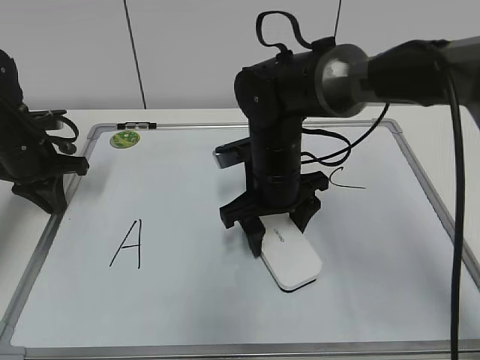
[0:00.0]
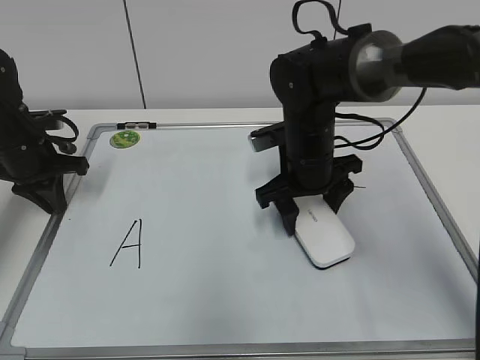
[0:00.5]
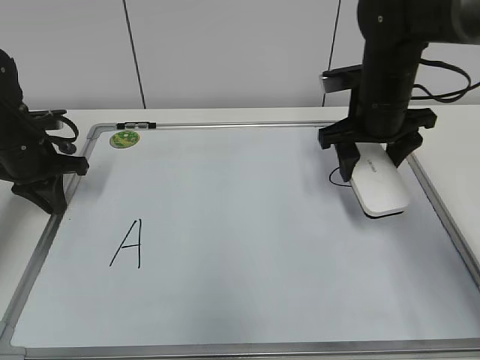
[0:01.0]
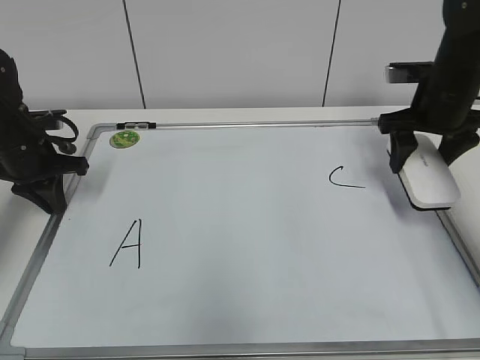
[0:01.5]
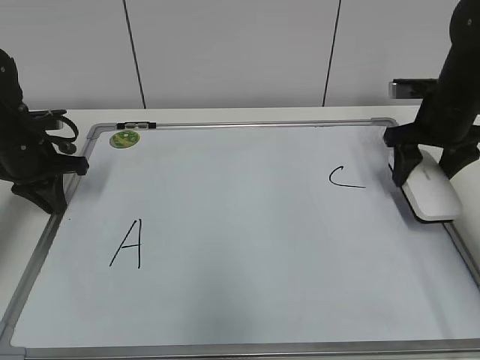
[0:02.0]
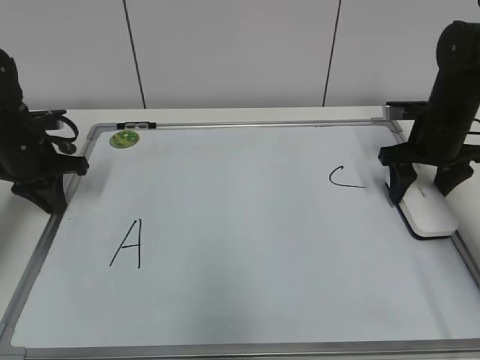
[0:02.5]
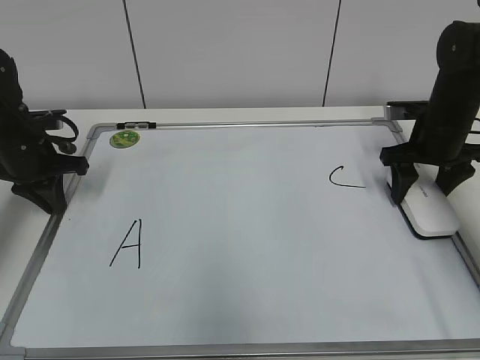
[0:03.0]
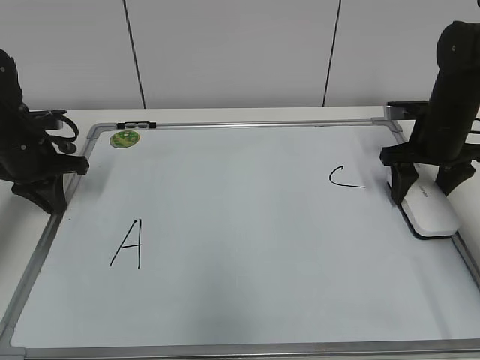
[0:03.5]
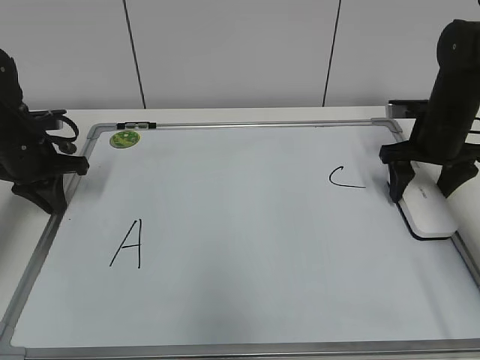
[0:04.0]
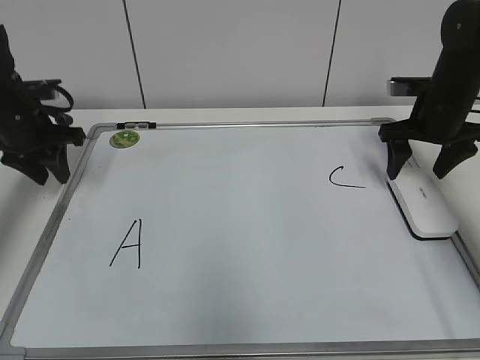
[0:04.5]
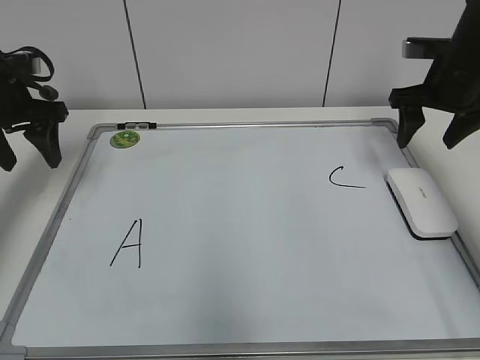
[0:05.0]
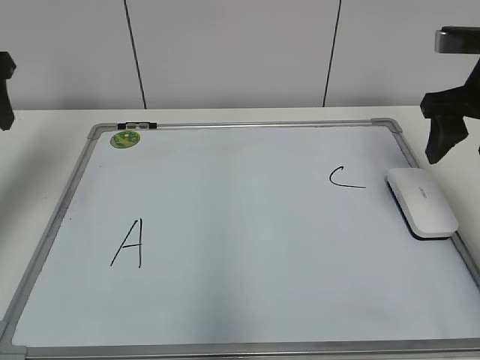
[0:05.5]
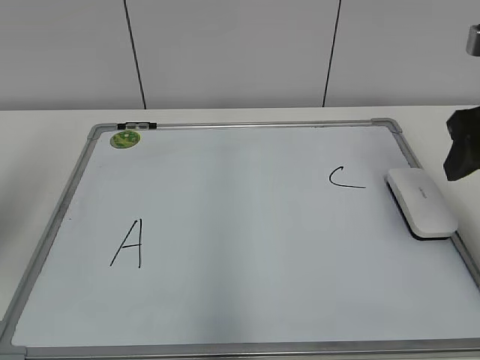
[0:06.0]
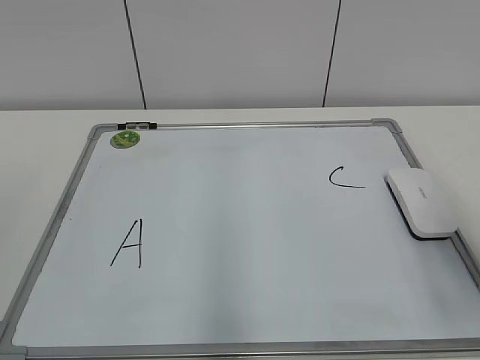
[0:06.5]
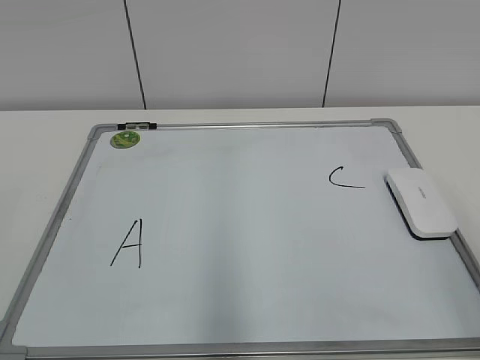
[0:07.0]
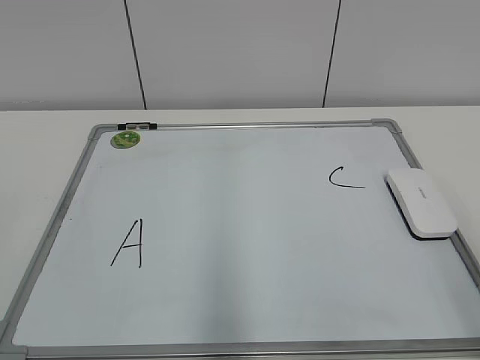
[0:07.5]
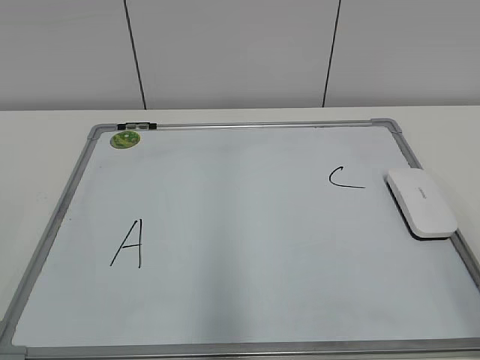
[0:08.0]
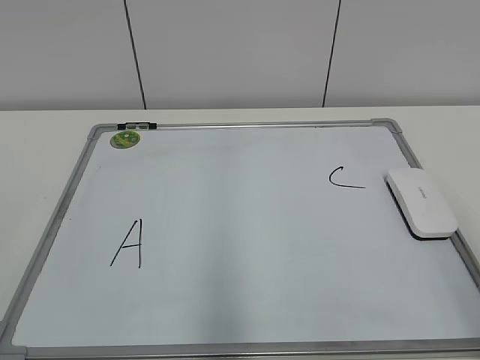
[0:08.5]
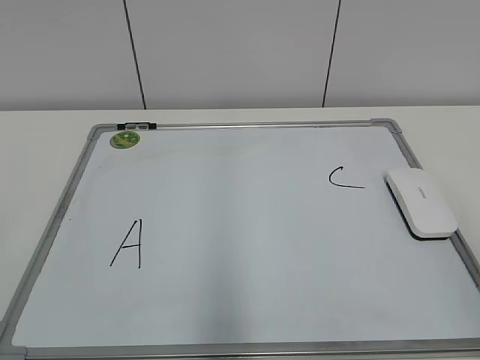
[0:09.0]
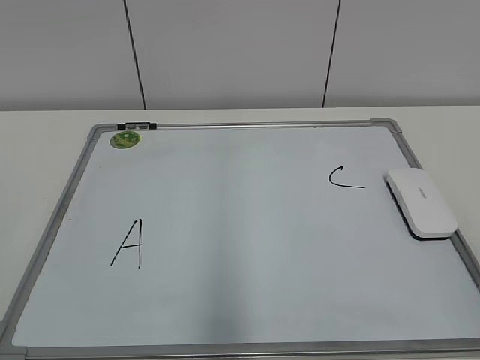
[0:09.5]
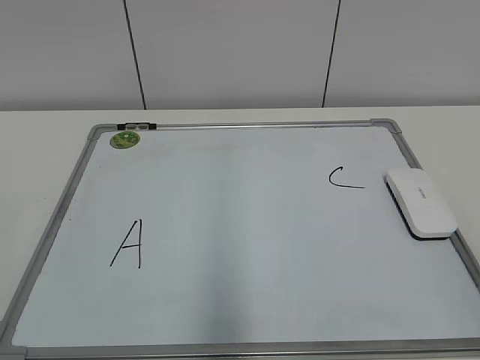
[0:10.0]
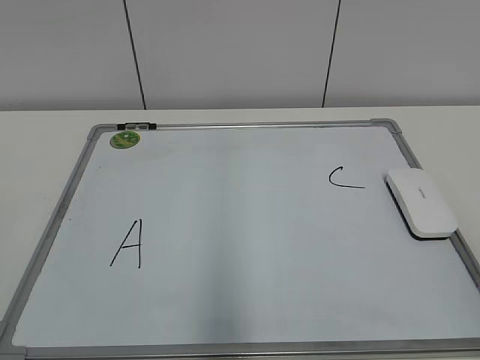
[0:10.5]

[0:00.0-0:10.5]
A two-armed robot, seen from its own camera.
Task of the whole recording: pick up the eraser on the blackboard and erase the letter "B".
Step, 0:00.5 to 0:03.5: Put down the eraser with your right hand.
0:00.0 to 0:02.0: The right gripper travels to the right by roughly 25 cm.
0:02.0 to 0:04.0: The right gripper opens up.
0:04.0 to 0:06.5: The grippers both shift backward and upward by approximately 35 cm. The left gripper opens.
0:06.5 to 0:08.5: The right gripper shifts about 10 cm backward, and closes its fingers.

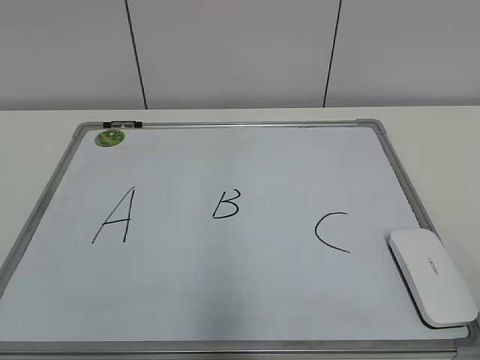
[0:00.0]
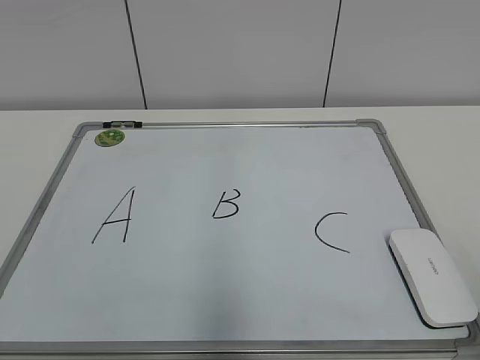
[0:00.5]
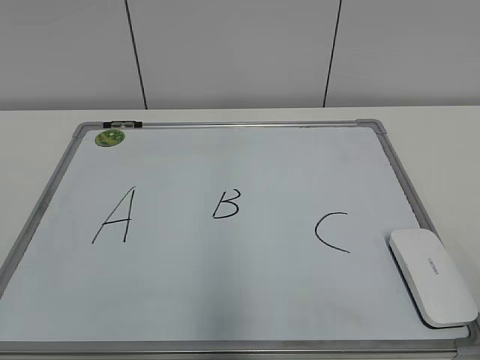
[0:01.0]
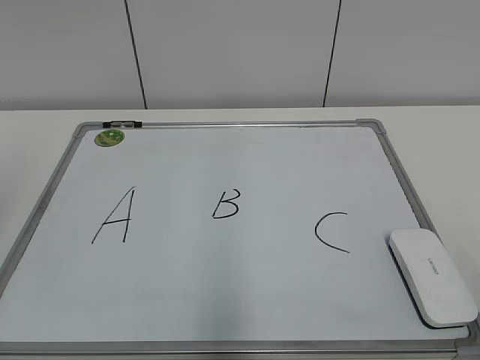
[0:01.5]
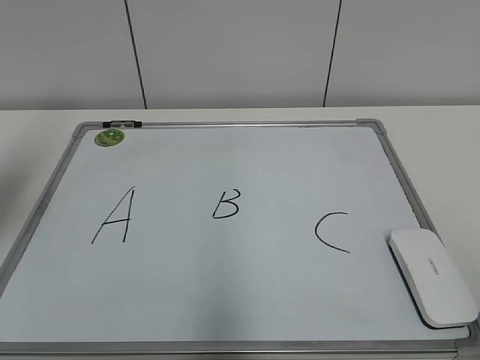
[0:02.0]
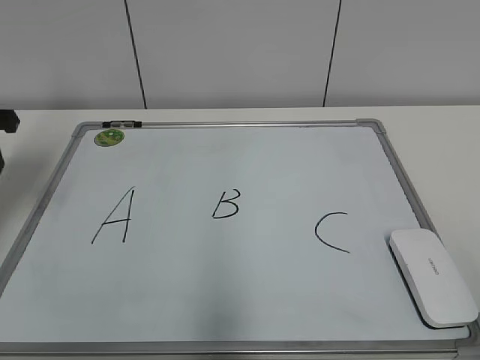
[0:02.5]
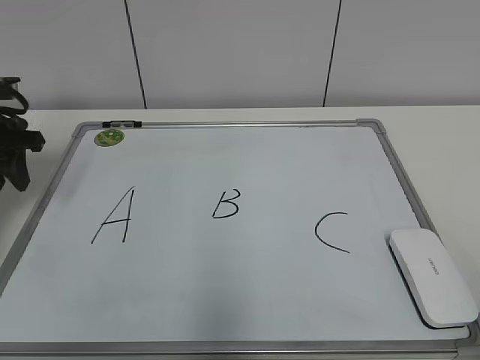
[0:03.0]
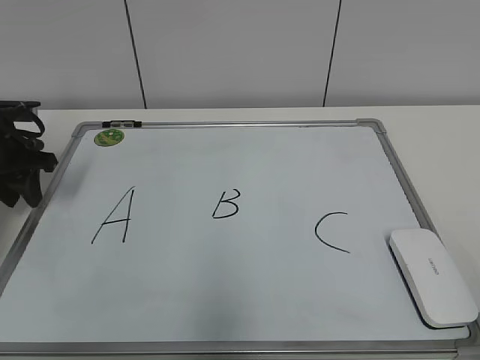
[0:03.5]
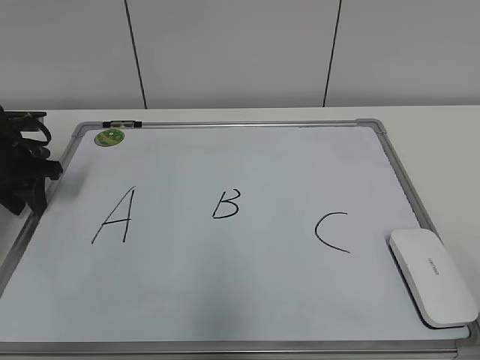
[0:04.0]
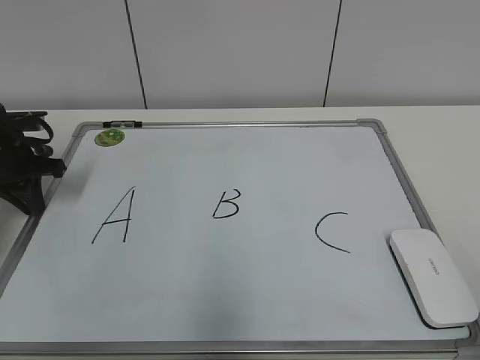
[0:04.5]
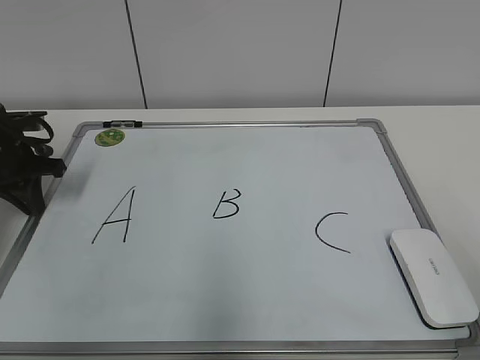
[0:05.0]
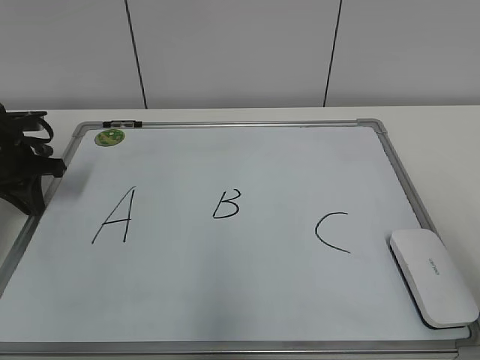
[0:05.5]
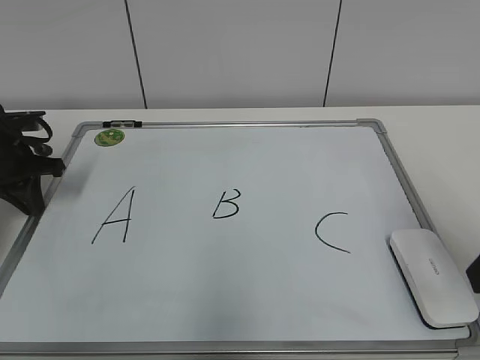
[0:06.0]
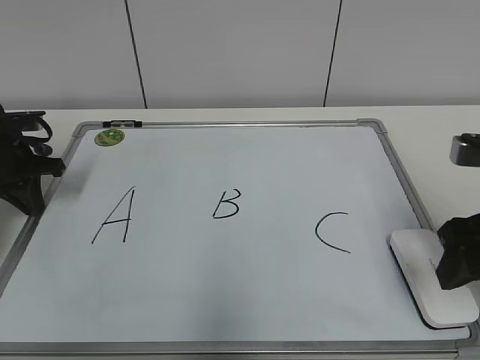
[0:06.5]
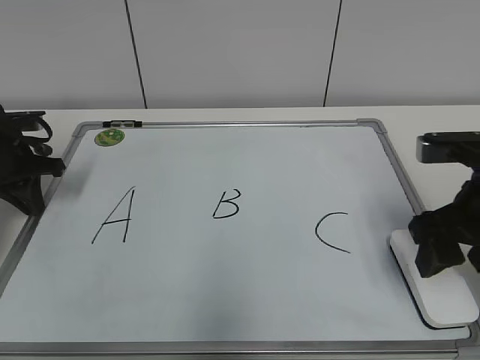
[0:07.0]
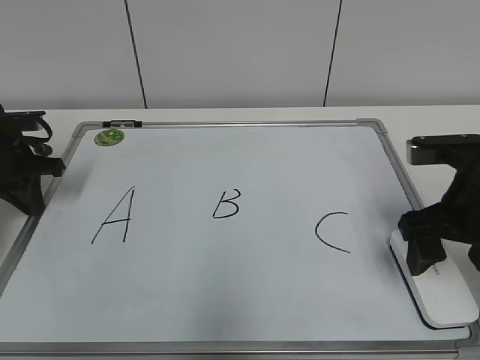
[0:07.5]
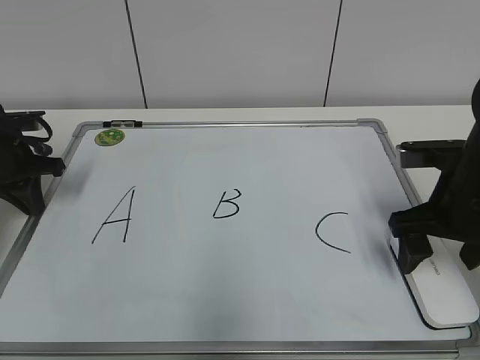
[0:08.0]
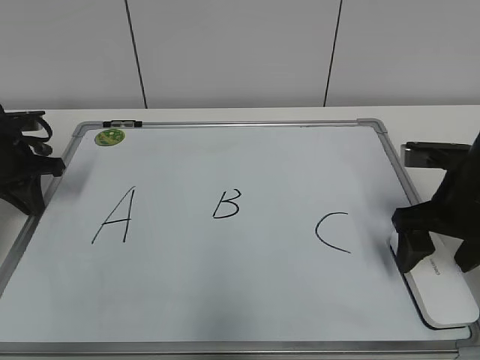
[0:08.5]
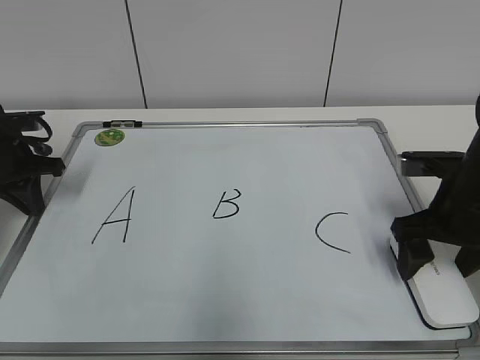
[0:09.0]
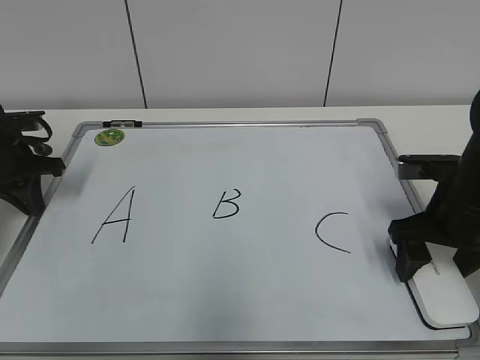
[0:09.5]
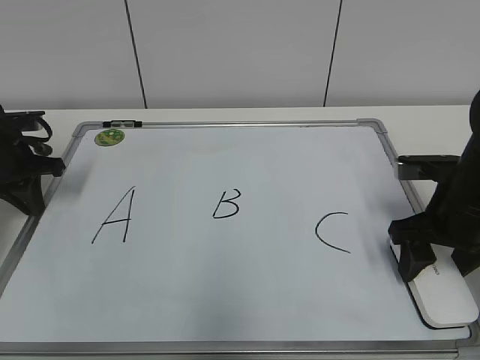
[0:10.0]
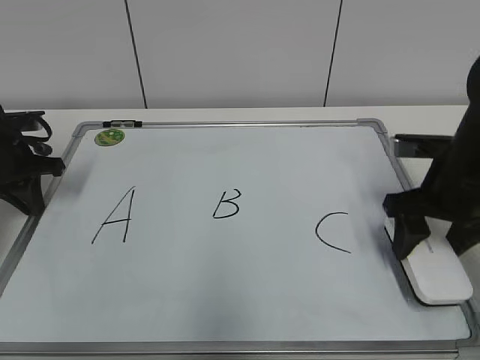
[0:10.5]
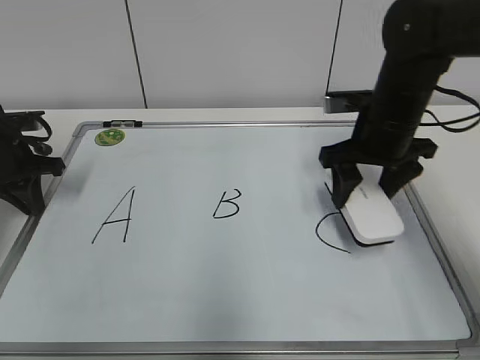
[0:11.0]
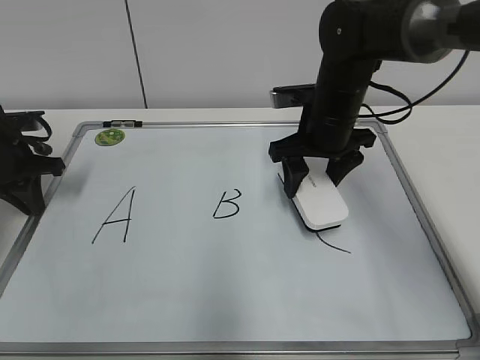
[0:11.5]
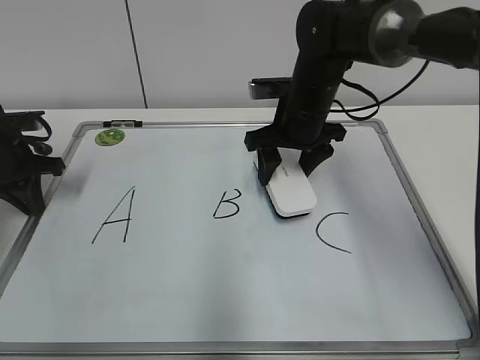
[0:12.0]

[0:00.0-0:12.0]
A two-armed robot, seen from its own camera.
Task of the whole recording: pick up the eraser on the blackboard and erase the letter "B".
Step, 0:00.0 to 0:04.0: Hold the drawing board steady with your left hand.
Step, 0:04.5 to 0:10.0: Grab the eraser with your right hand.
0:02.0 to 0:04.0: The left gripper travels downward and forward by approximately 20 cm.
0:04.0 to 0:06.0: The left gripper closes up; the right gripper travels forward by approximately 20 cm.
0:06.0 to 0:08.0: The right gripper travels forward and downward by approximately 15 cm, and opens its fingers.
0:08.0 to 0:10.0: The right gripper closes.
0:10.0 to 0:12.0: The right gripper travels to the left and forward by roughly 20 cm.

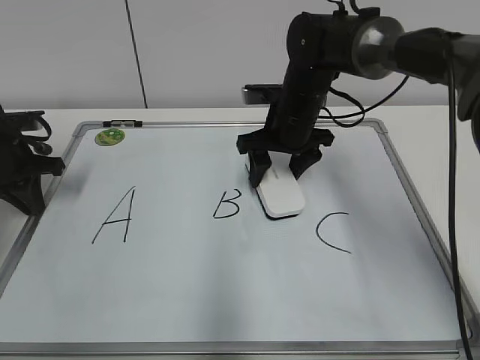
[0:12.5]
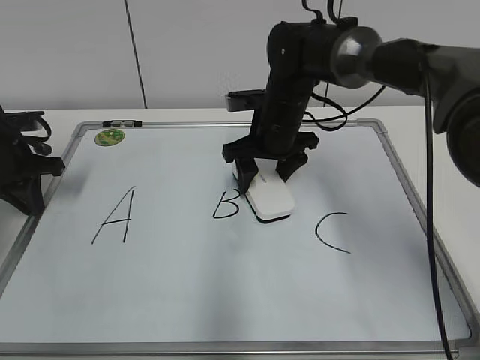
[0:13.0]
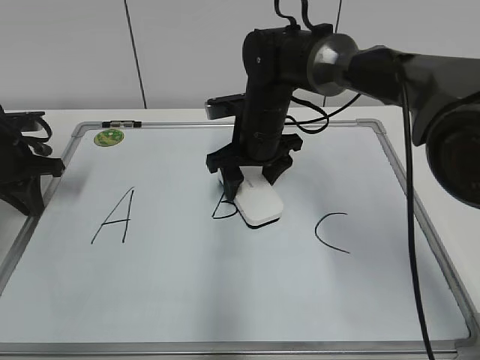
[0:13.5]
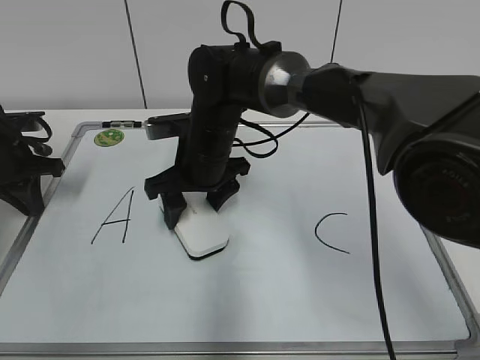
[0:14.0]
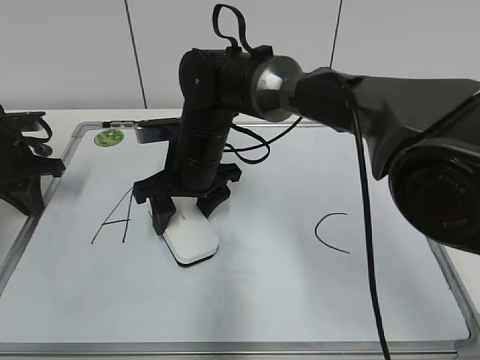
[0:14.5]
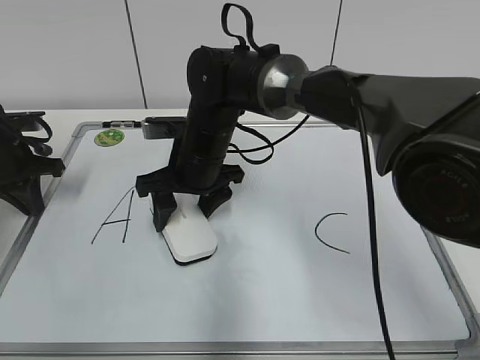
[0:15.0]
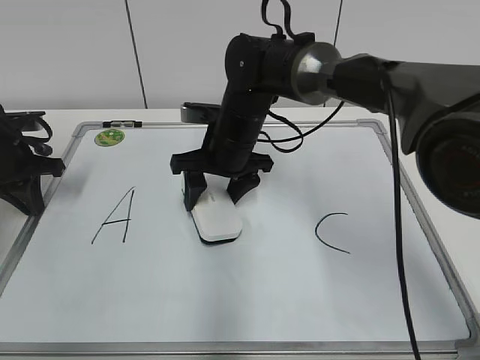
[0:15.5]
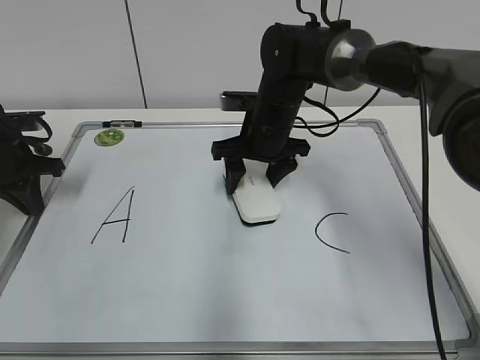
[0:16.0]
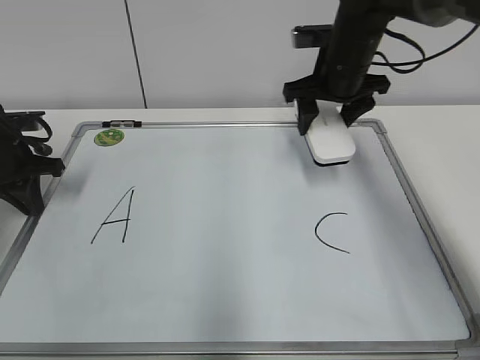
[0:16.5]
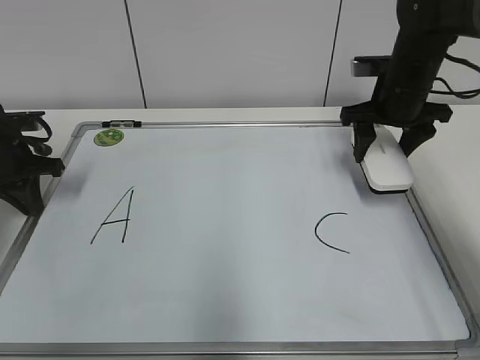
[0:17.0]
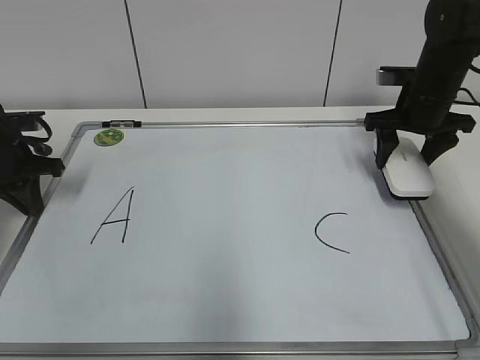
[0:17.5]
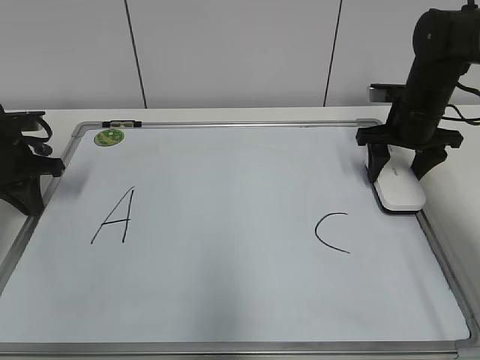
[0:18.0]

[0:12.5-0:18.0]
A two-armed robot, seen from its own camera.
Task of the whole recording: pick up the eraser on the blackboard and erase the letter "B".
Step, 0:12.5 to 0:16.0: Erase the letter B with your right hand.
0:12.5 to 0:14.5: The right gripper moves to the left and backward, about 15 cm.
0:14.5 to 0:16.0: The right gripper shifts approximately 10 cm to the right and forward.
0:16.0 to 0:18.0: The right gripper shifts roughly 20 cm to the right.
